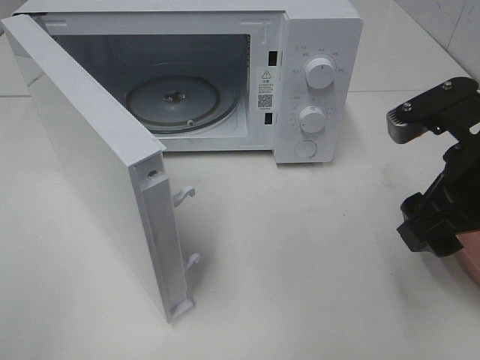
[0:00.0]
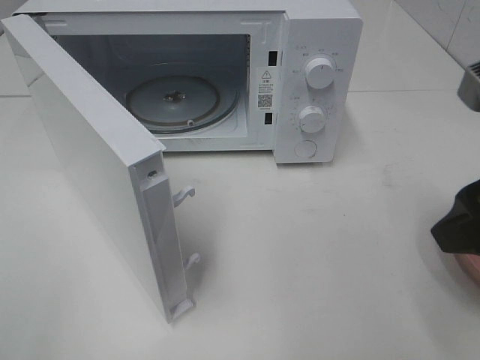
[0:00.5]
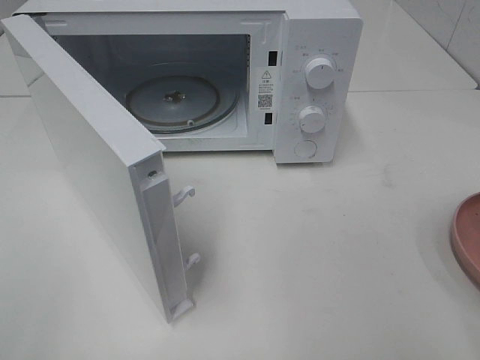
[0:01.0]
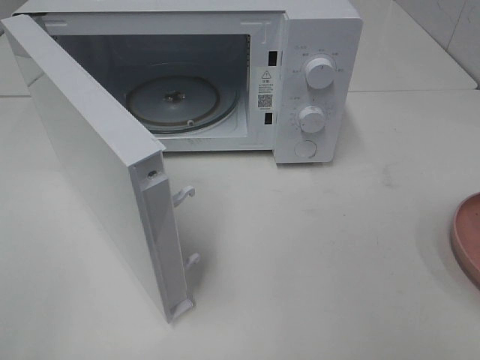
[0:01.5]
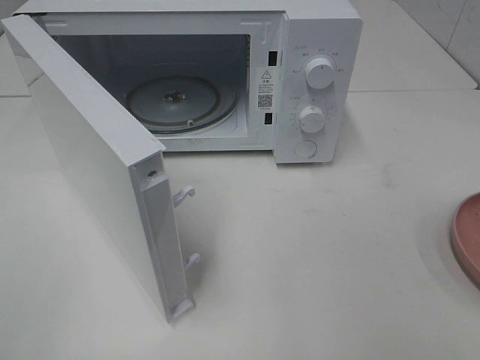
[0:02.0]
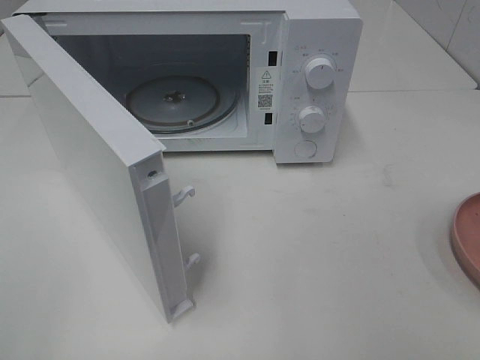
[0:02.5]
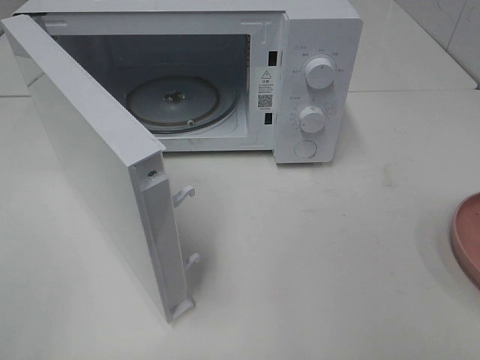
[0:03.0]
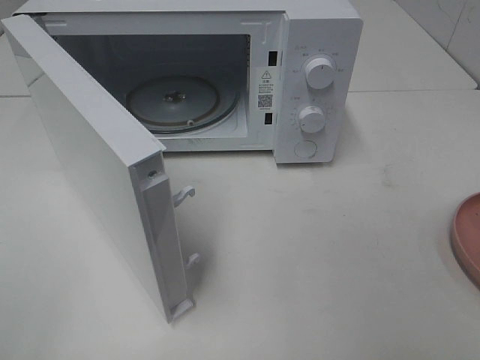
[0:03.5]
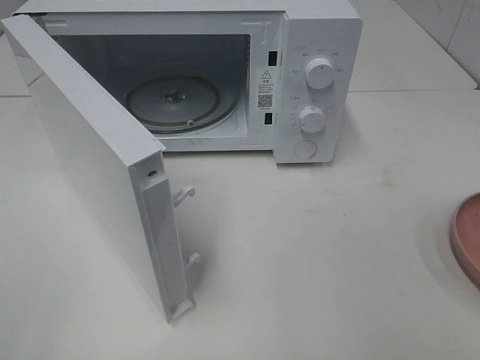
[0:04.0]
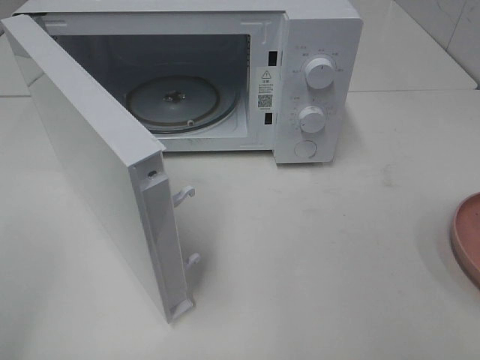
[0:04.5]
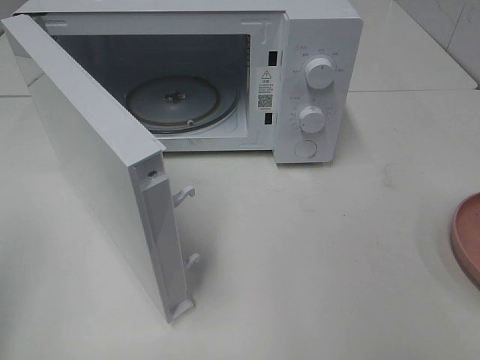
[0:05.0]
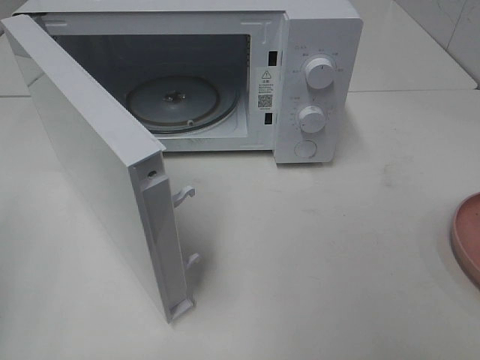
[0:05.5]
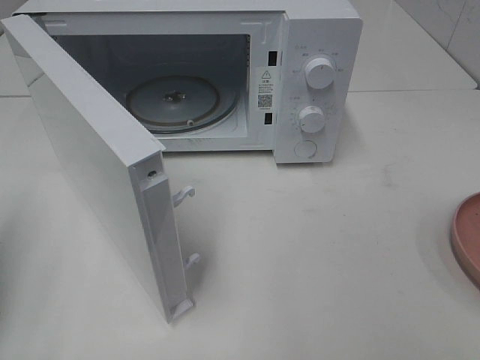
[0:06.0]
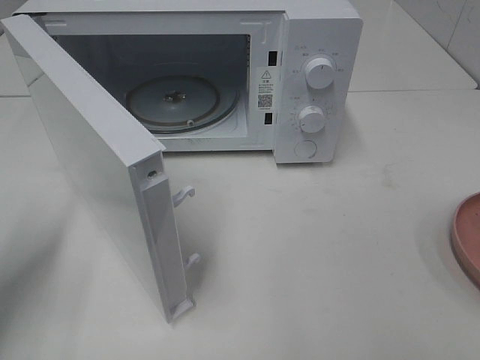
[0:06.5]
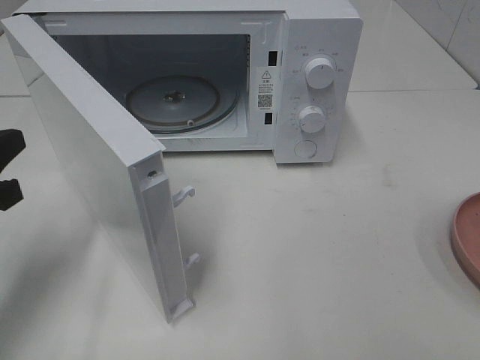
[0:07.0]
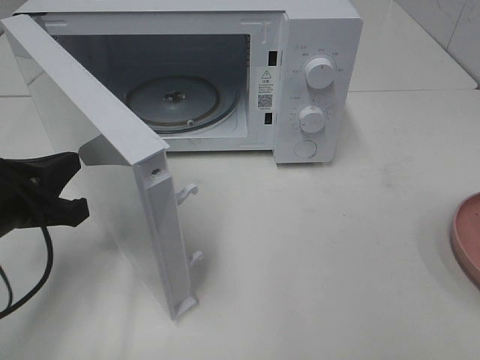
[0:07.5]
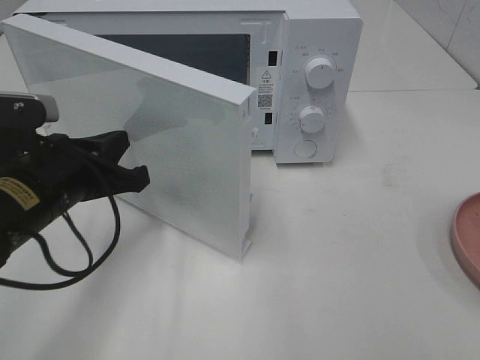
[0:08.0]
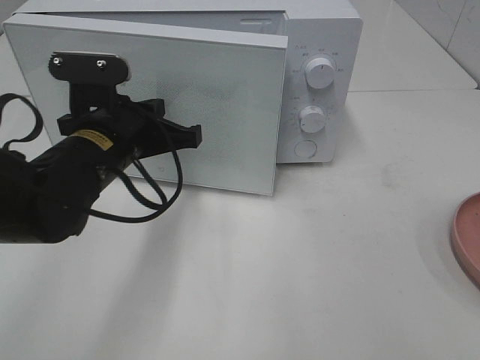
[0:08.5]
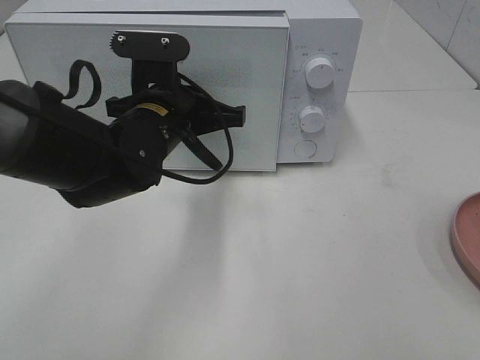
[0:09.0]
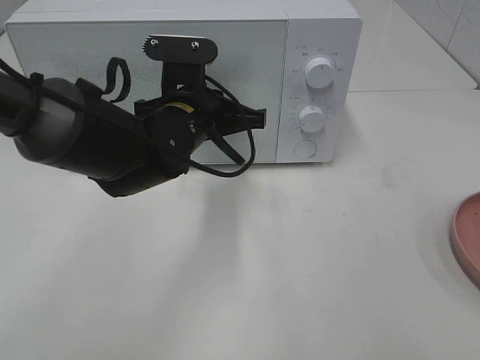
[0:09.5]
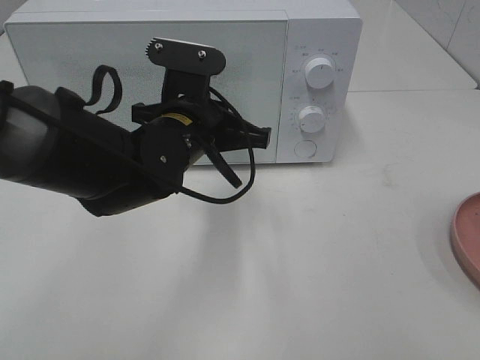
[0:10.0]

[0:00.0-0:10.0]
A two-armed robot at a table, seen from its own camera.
Task of the whole recording: Heat the burger.
Step, 0:00.0 to 0:09.5: Left hand: close the microwave door.
0:00.0 to 0:02.0: The right gripper heads backward and to the right, covering some 20 cm.
0:02.0 to 0:04.0: Both grippers stay put.
0:04.0 to 0:06.0: The left gripper goes about 15 cm forward, and closes its fingers.
0:06.0 to 0:08.0: The left gripper is displaced to the right, forward and downward by about 20 cm.
0:08.0 to 0:10.0: The left gripper moves to the right and forward, approximately 15 cm.

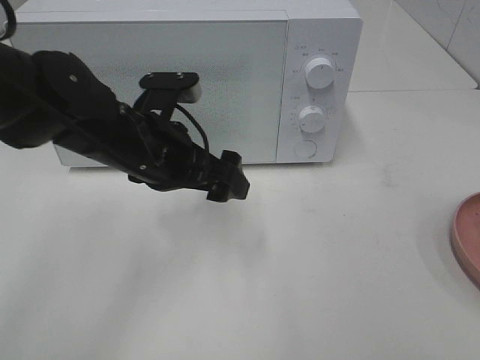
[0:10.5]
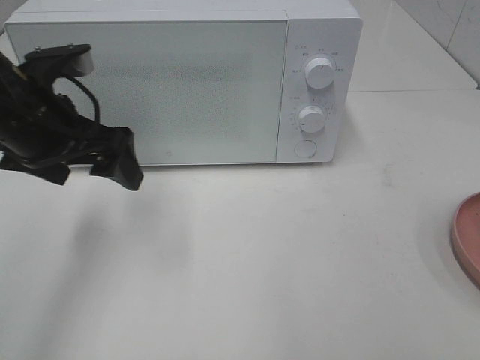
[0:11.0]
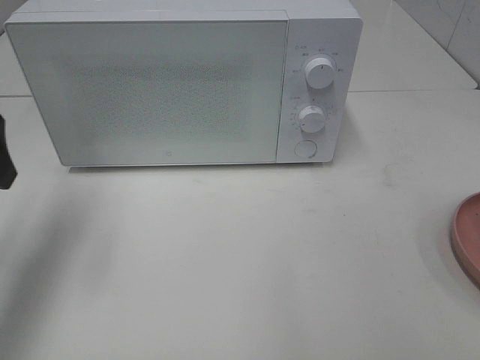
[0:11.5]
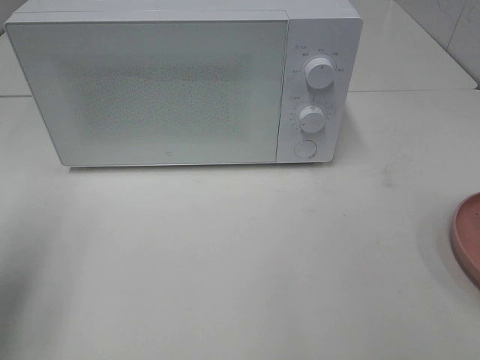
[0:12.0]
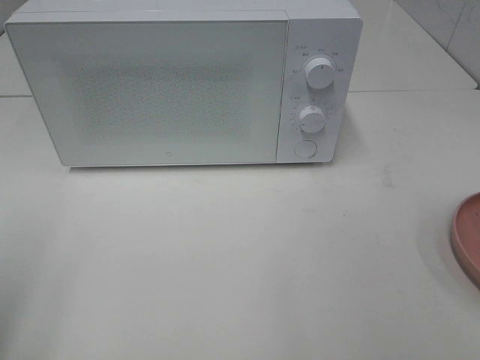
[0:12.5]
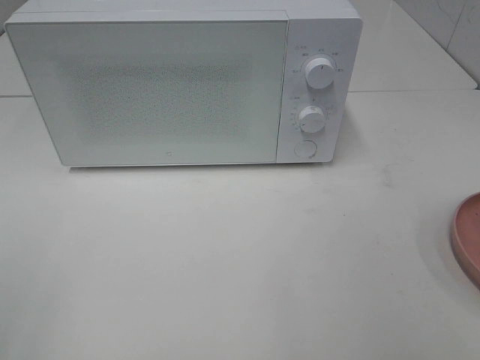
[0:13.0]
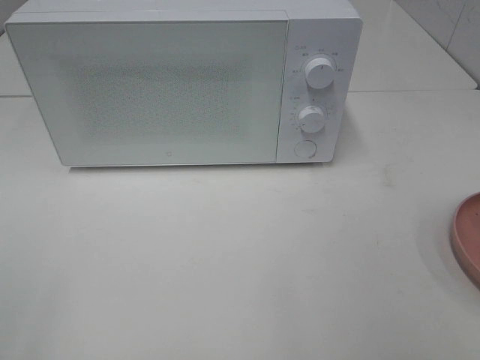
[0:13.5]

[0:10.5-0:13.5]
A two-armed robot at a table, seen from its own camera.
Task of the whole recording: Heat the burger.
0:10.5 to 0:12.0: The left gripper is displaced to the left, backward and upward by some 25 cm.
0:12.0 to 0:13.5: The left gripper is displaced backward by approximately 15 cm.

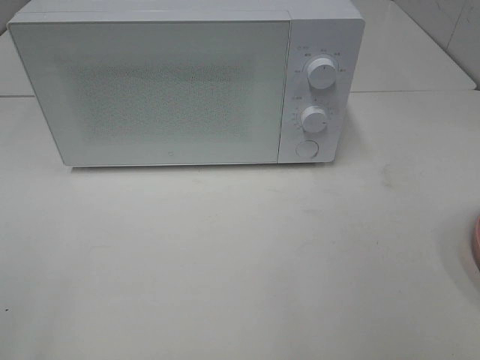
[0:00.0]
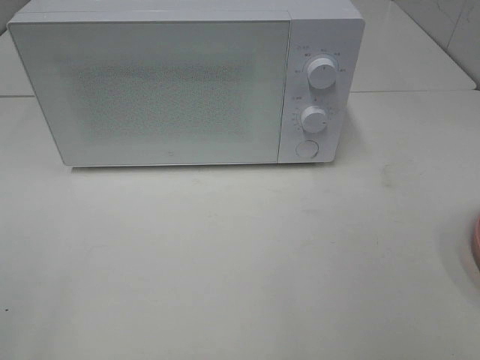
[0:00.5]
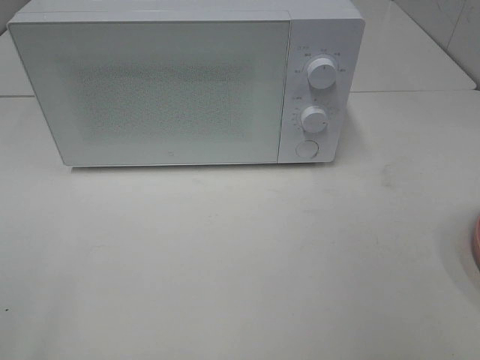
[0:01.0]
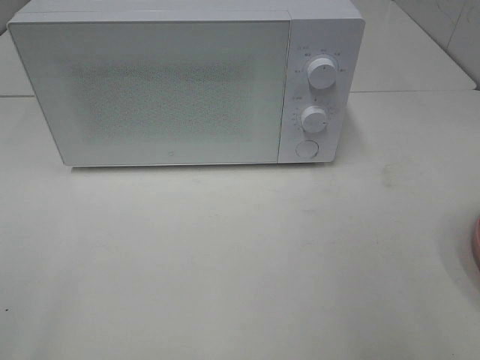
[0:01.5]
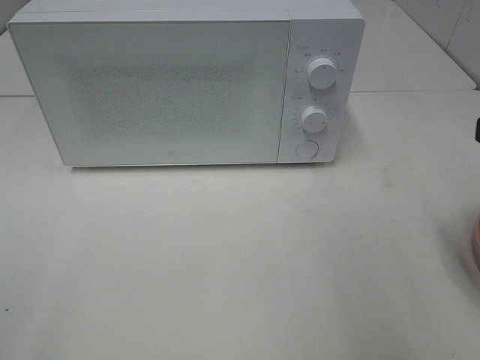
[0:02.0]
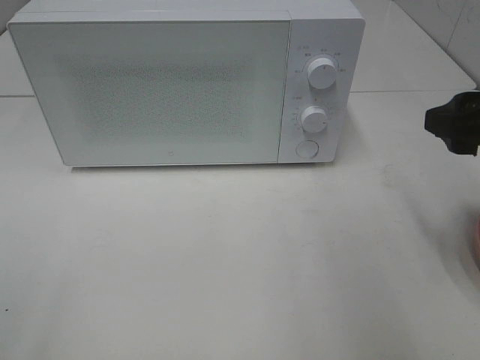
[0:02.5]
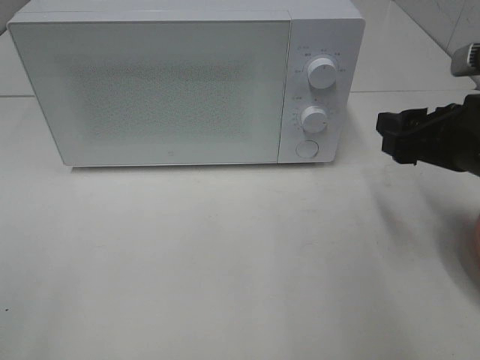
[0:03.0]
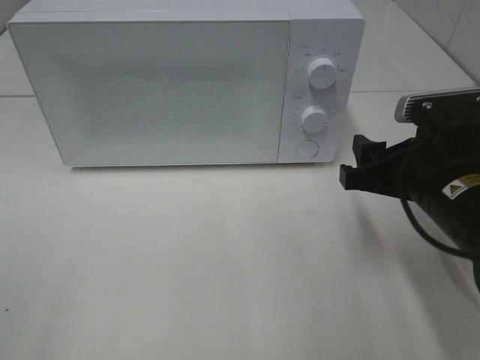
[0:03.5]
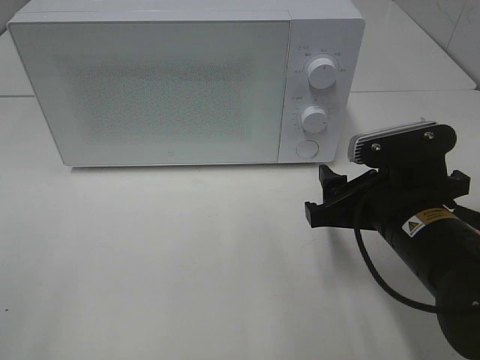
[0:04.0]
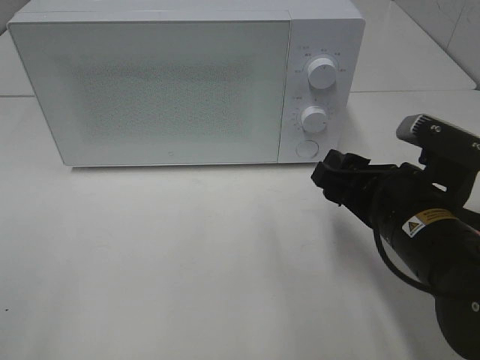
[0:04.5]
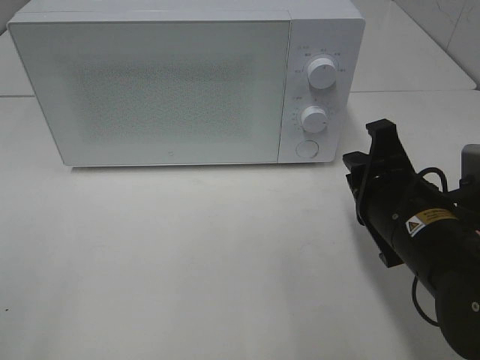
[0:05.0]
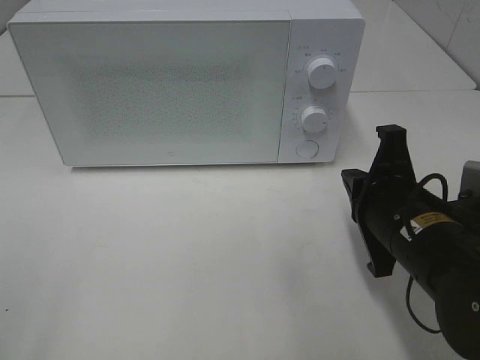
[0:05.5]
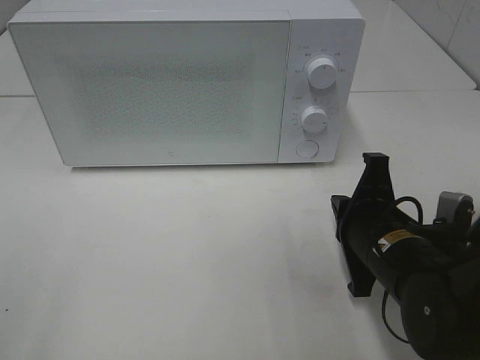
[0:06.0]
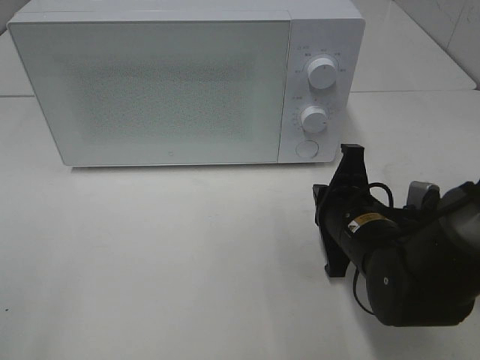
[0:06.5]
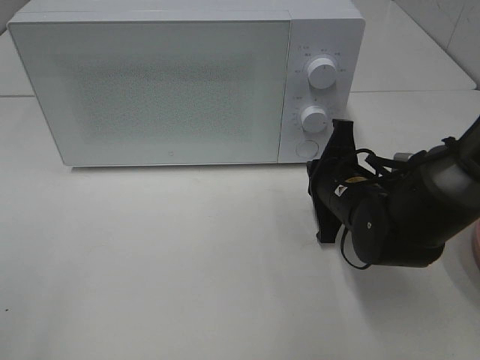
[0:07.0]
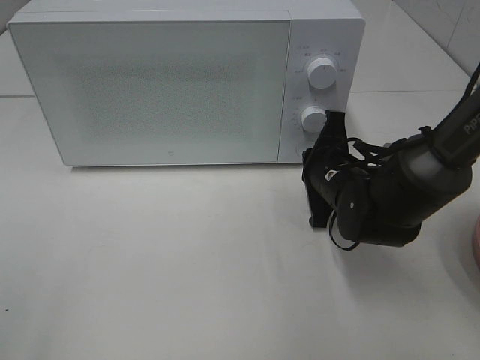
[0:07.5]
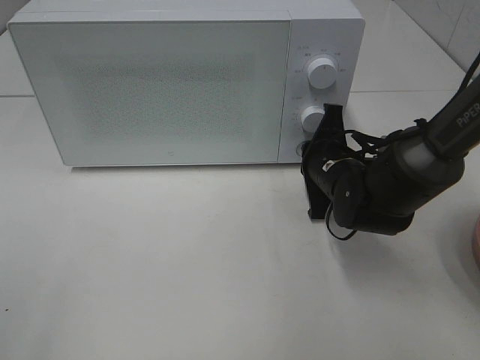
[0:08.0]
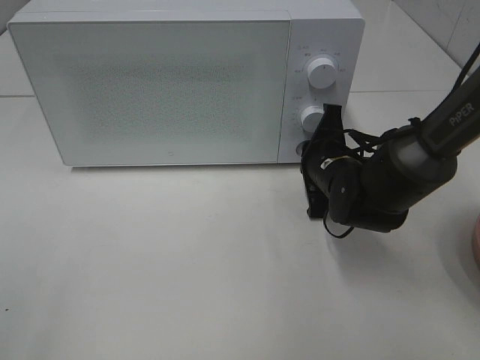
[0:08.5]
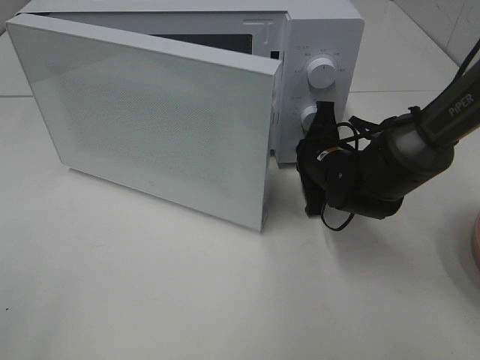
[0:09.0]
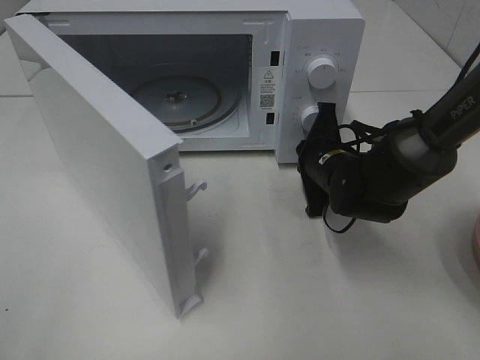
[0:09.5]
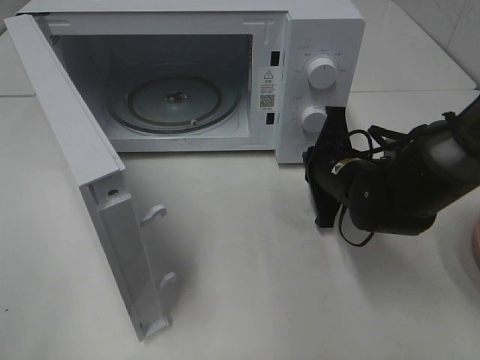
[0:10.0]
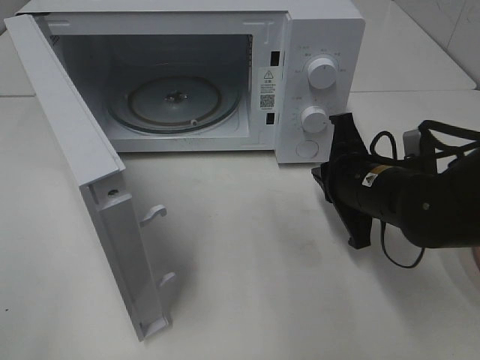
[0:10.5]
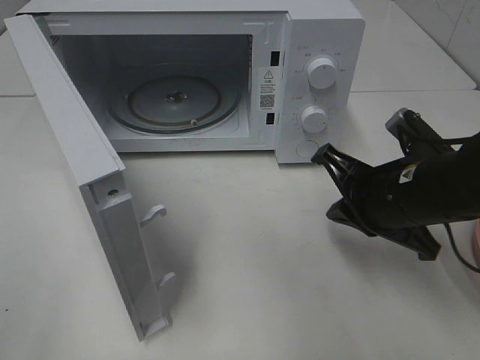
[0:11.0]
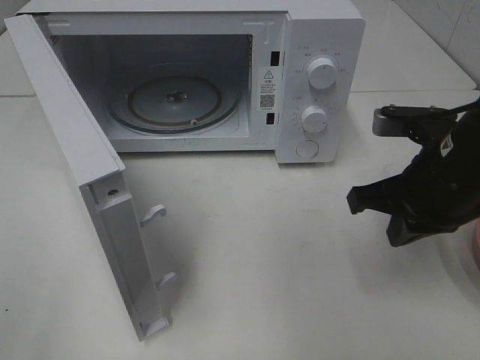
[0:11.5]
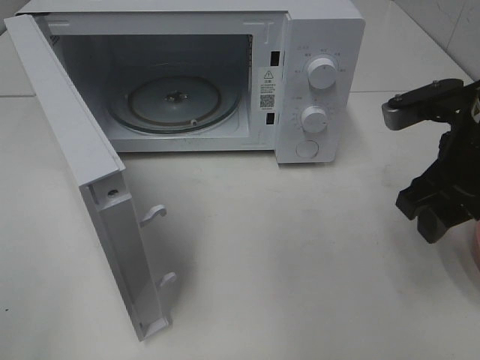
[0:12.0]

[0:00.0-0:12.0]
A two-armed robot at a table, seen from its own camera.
Task of the whole recording: Heat the burger.
Step, 0:00.0 to 0:10.0: Right hand: press the switch.
0:02.0 to 0:04.0: The right gripper goes roughly 15 cm downward and to the left.
0:04.0 to 0:06.0: The right gripper closes its fingers.
0:06.0 to 0:08.0: The right gripper travels forward by about 15 cm.
0:10.0 to 0:12.0: The right gripper heads upward, backward and to the right, covering roughly 15 cm, and opens up.
